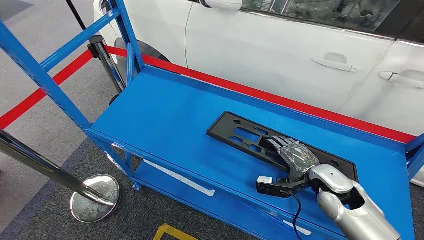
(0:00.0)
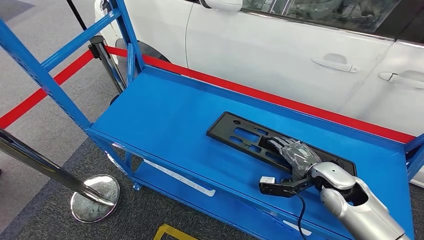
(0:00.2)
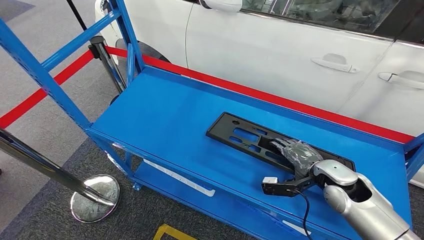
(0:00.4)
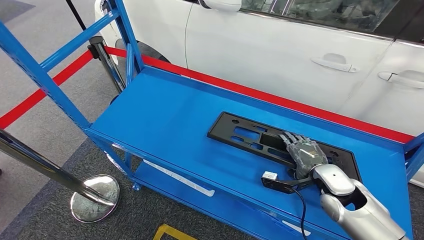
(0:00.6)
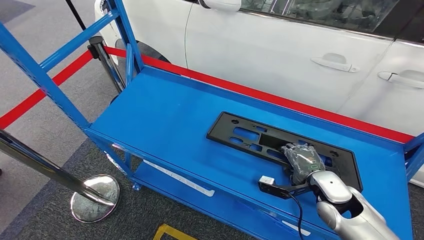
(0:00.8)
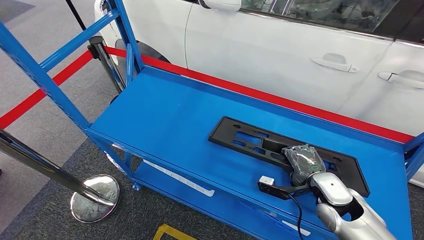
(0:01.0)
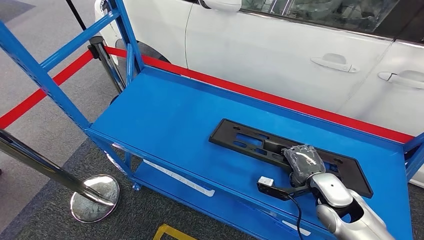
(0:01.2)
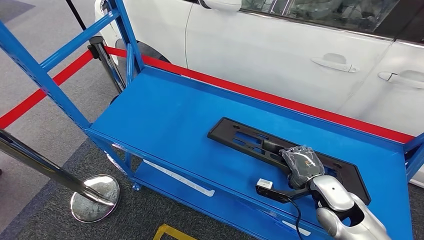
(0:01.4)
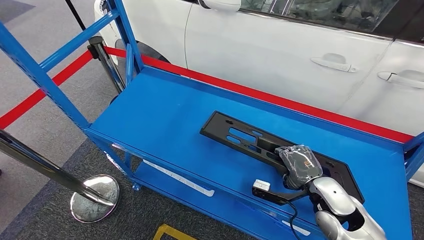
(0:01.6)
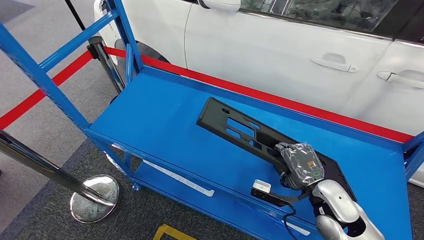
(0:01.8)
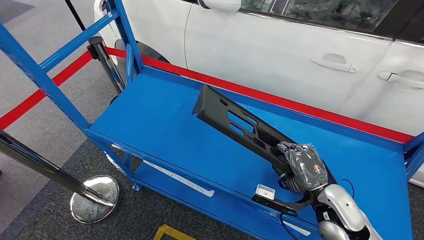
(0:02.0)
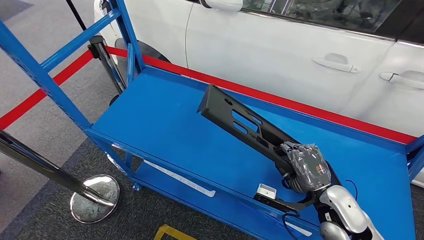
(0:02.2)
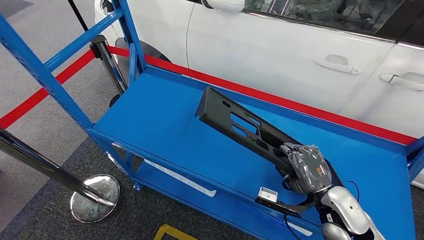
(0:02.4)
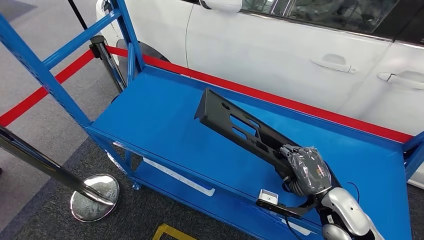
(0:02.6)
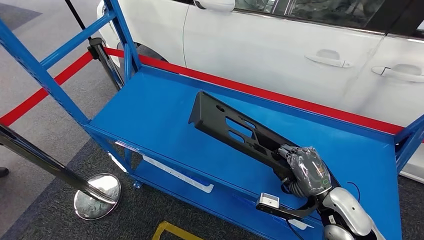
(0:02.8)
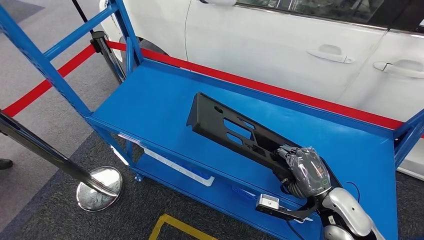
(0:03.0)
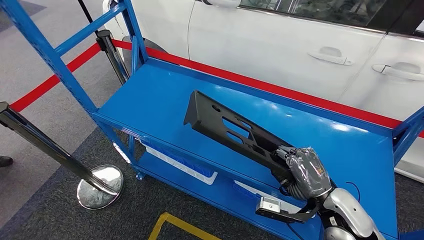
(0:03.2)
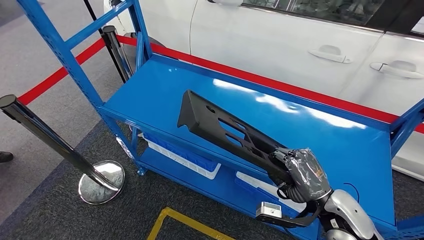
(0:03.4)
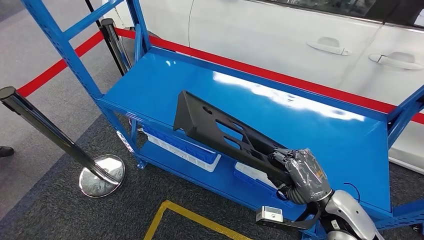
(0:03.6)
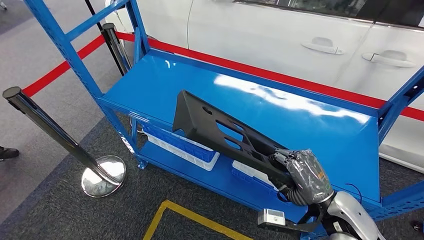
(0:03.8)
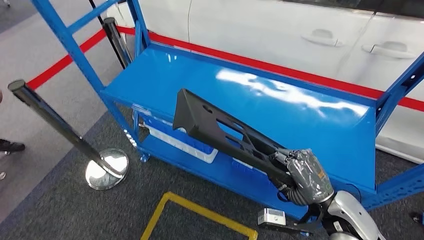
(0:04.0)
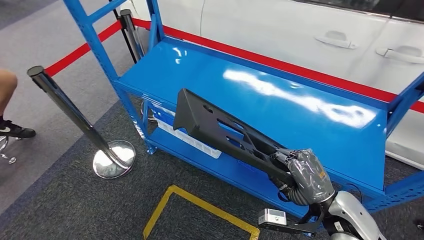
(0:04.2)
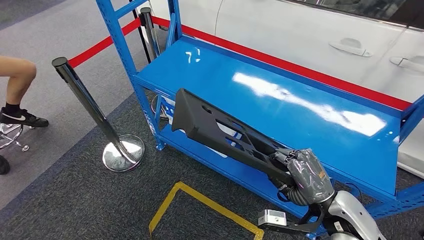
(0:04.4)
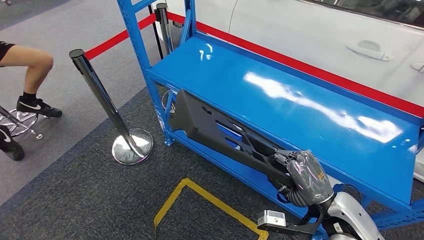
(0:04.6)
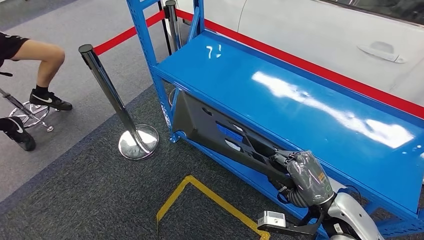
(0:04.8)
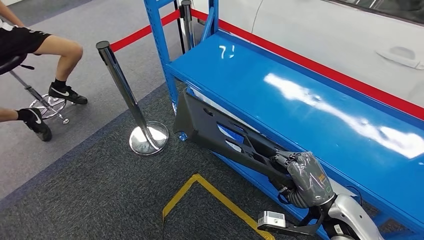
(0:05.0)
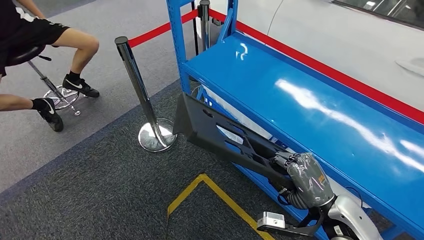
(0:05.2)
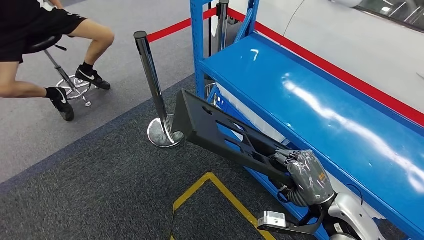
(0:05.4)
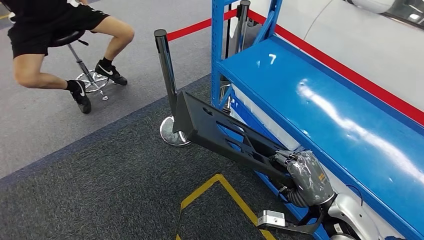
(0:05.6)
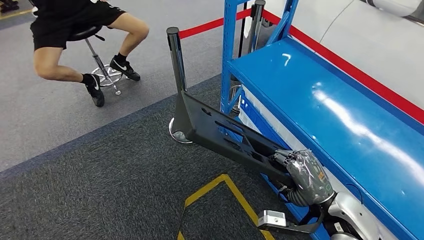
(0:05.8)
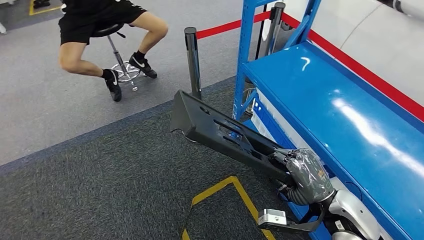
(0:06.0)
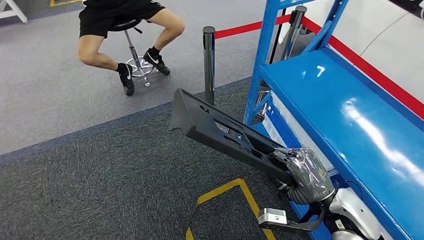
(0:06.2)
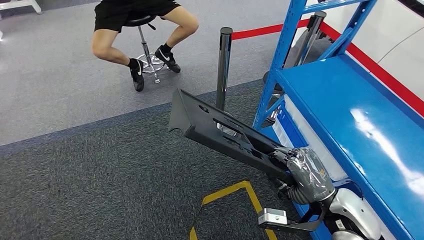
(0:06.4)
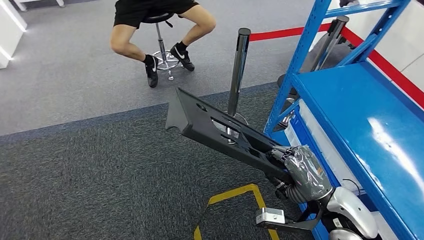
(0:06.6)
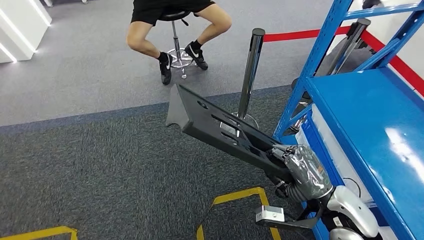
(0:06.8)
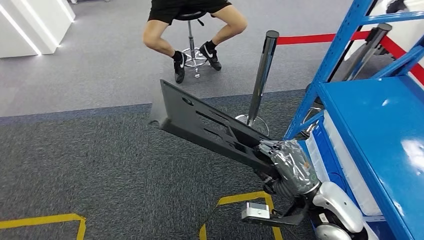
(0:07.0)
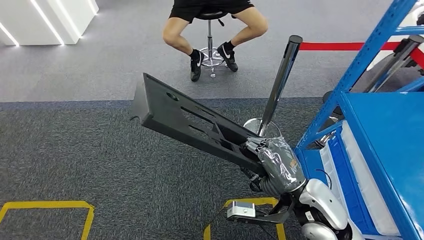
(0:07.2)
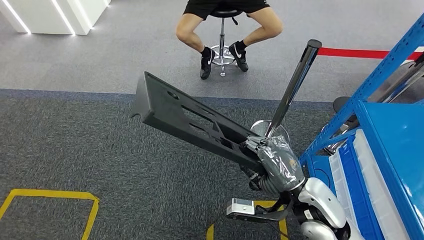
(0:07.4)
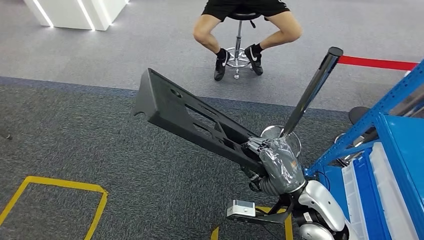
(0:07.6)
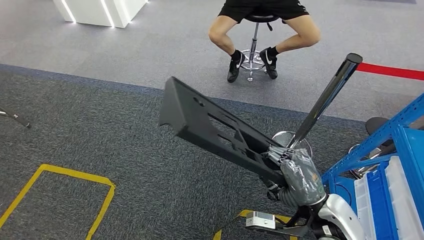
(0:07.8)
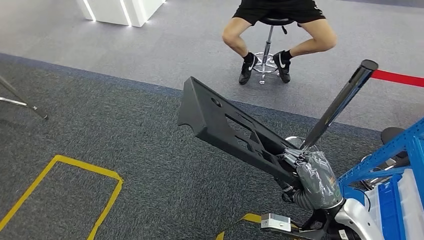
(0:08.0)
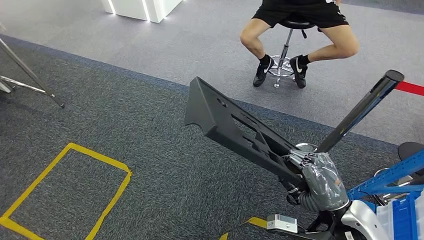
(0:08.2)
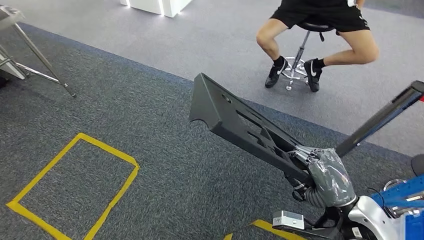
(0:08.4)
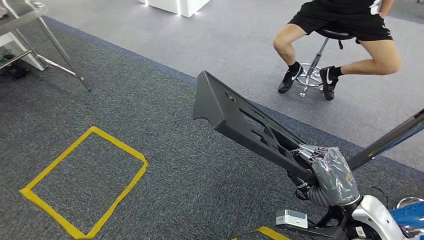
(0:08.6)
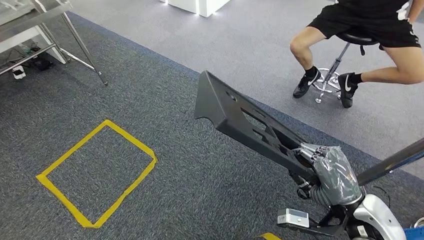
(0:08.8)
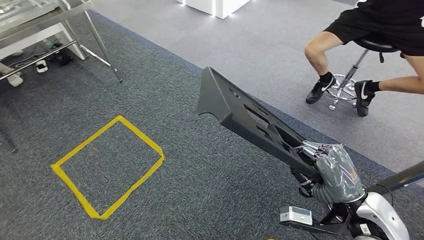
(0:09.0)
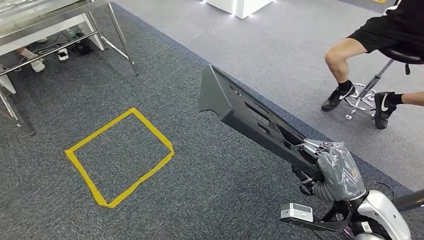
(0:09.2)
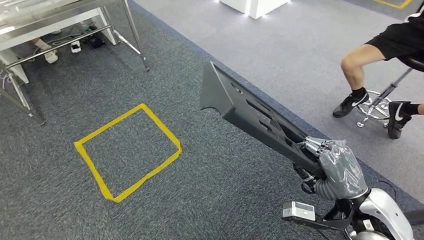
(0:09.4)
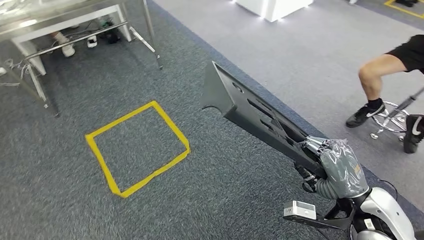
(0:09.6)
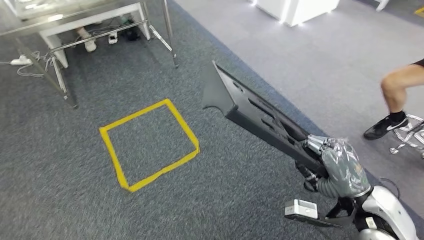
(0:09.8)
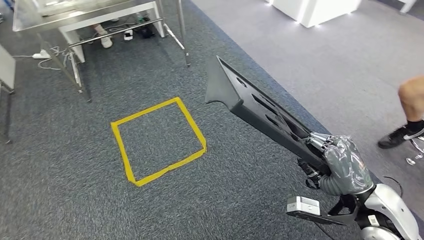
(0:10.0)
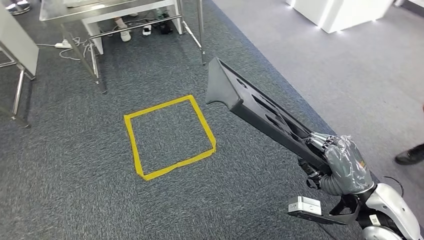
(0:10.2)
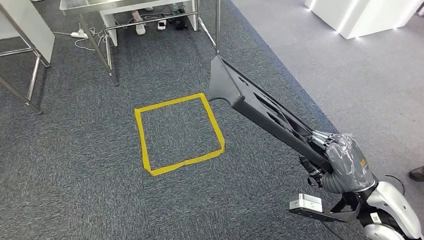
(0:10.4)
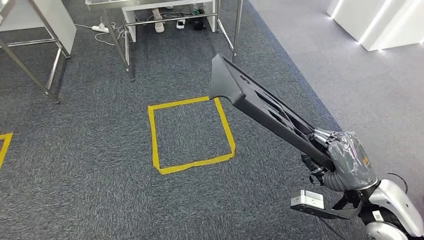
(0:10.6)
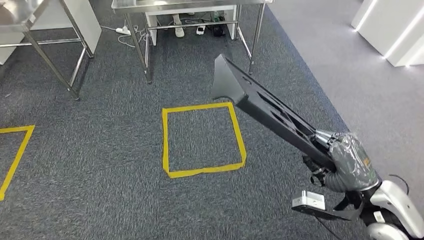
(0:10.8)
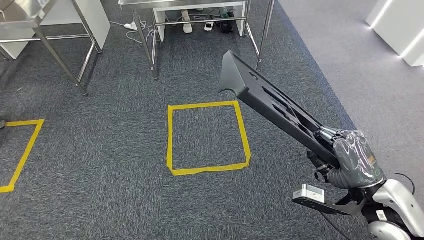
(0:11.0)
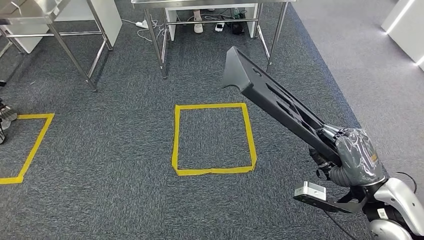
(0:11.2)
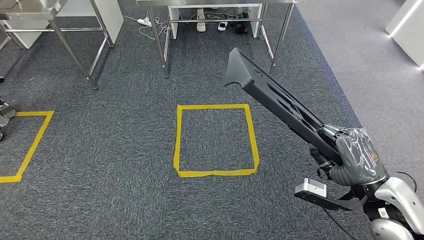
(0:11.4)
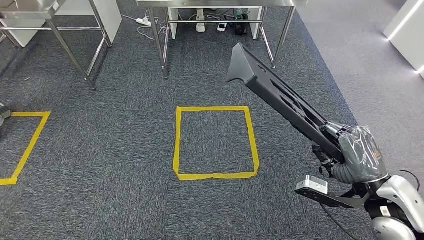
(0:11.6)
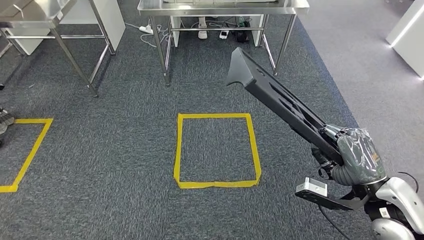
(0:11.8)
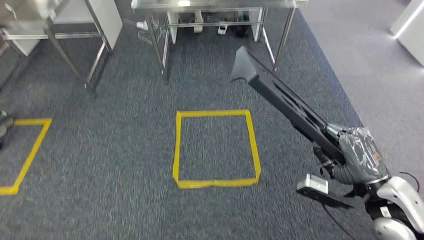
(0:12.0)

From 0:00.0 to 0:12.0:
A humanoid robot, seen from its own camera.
Step, from 0:00.0 to 0:04.4: Pick up the large material from the shelf.

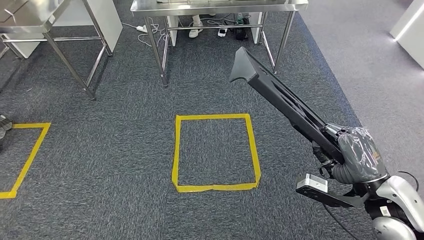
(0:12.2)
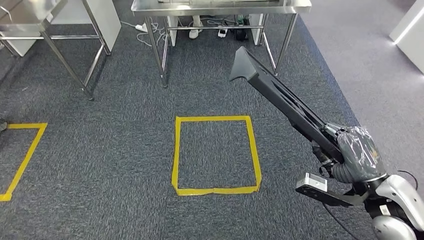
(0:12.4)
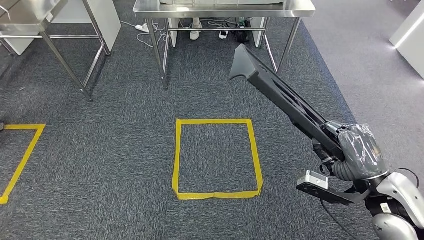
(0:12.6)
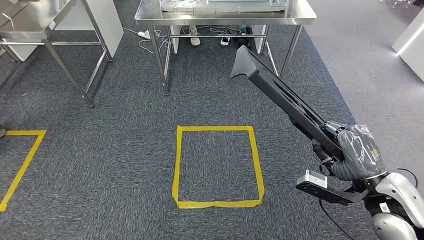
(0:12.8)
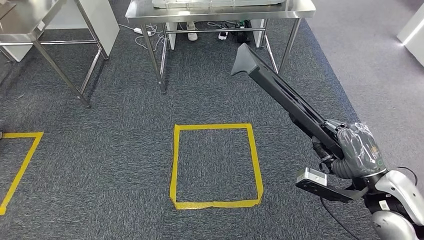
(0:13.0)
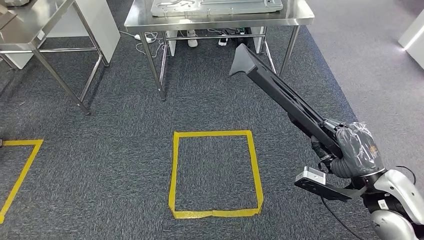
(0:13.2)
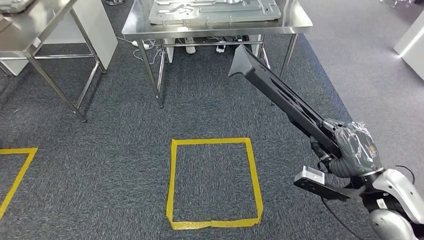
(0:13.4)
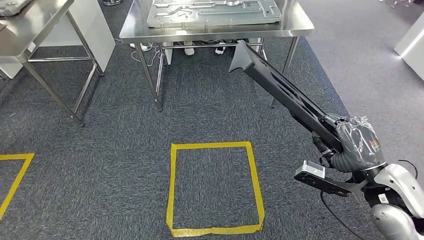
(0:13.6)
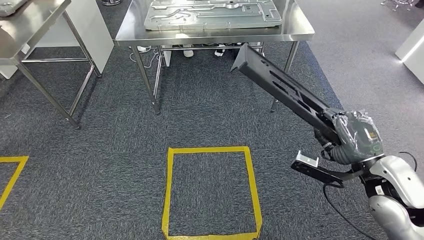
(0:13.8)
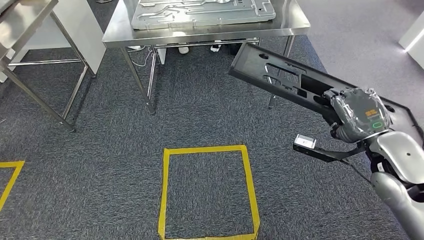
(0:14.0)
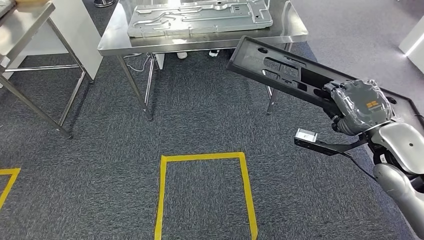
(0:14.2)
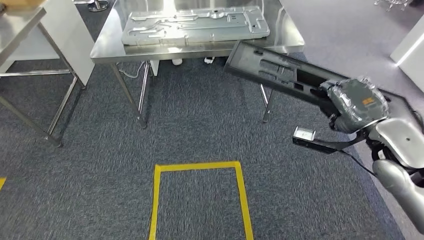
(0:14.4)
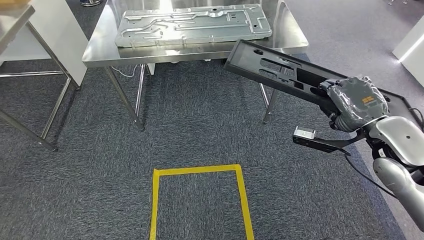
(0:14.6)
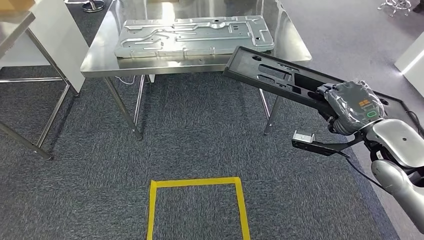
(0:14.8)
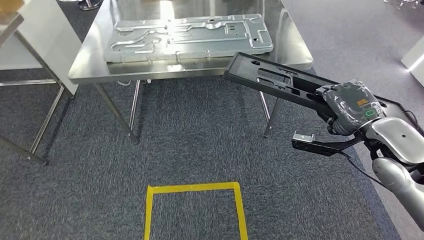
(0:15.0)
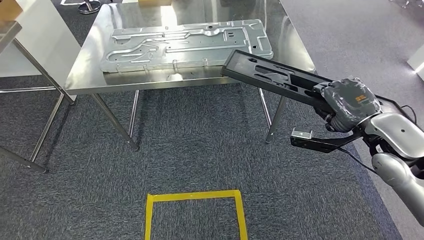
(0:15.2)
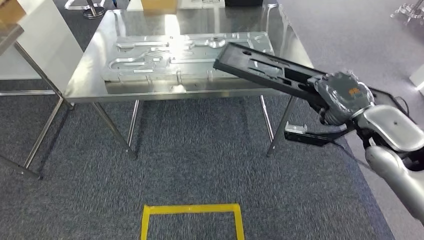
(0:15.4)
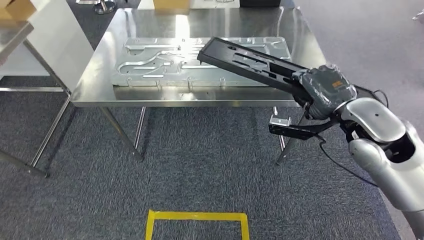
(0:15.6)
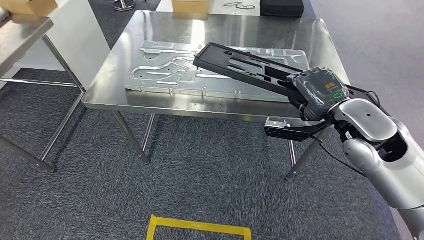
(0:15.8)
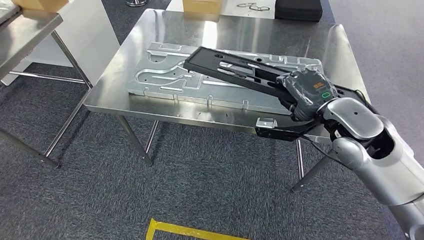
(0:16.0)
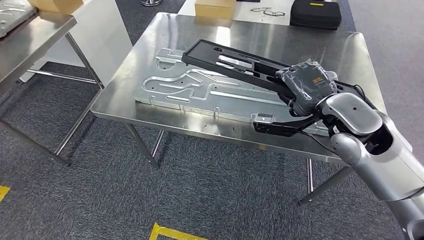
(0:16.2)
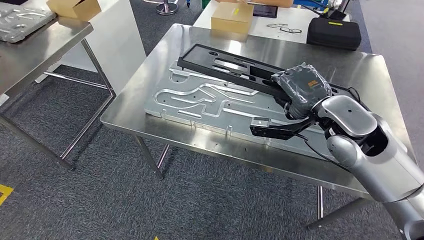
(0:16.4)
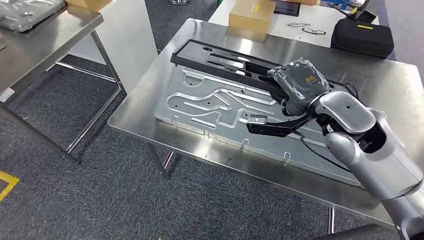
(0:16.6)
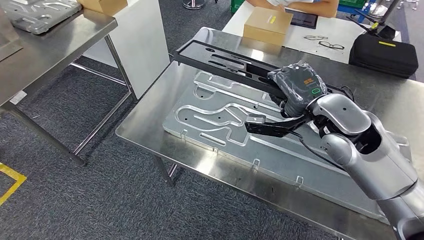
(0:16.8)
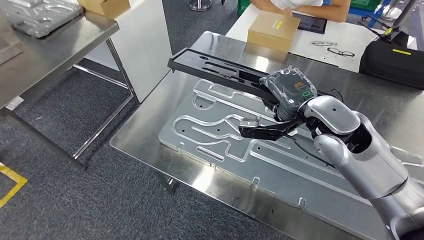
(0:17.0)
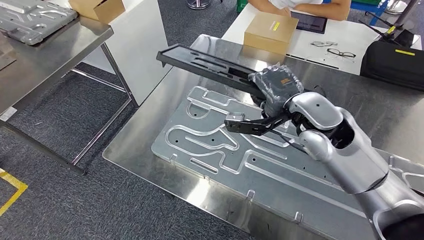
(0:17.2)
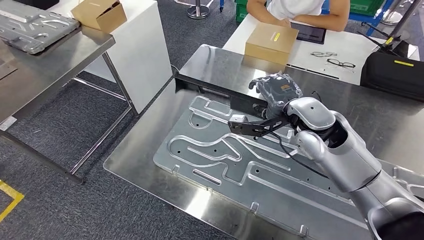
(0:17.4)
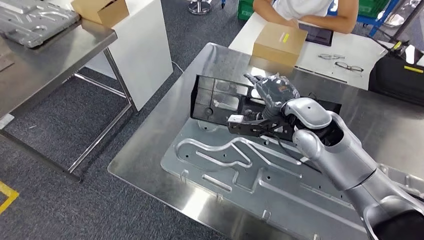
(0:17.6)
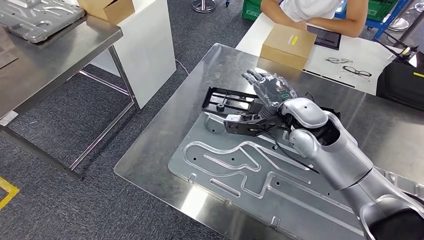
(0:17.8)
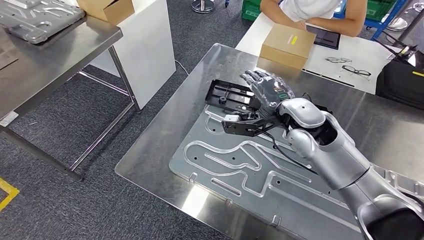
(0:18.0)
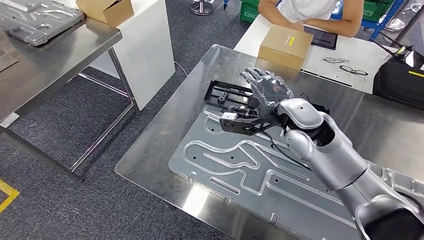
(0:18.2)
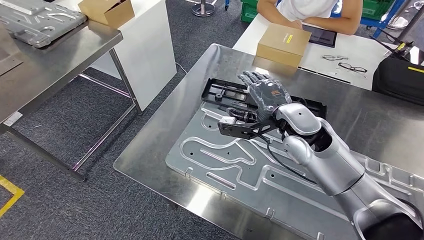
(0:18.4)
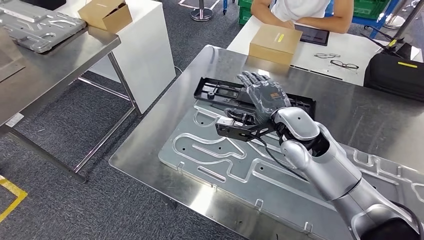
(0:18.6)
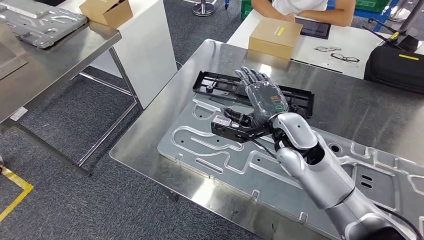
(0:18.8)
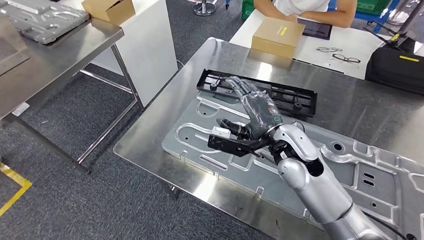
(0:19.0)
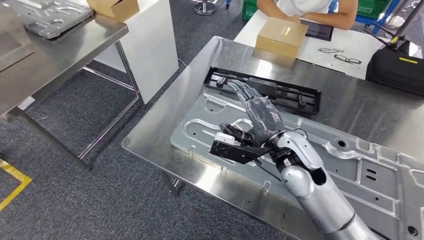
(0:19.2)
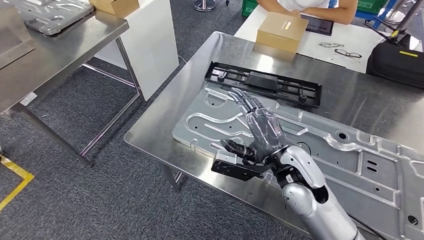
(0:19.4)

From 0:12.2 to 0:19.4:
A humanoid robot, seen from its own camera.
Step, from 0:12.2 to 0:16.0: Move the large material to the workbench.
